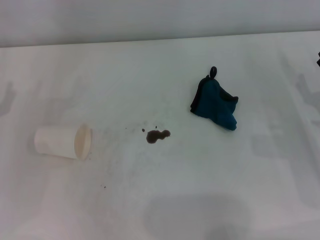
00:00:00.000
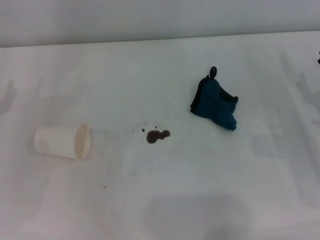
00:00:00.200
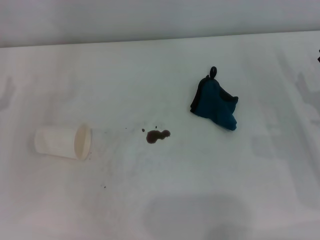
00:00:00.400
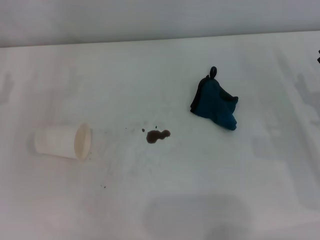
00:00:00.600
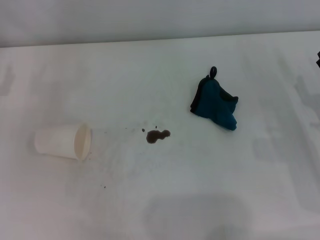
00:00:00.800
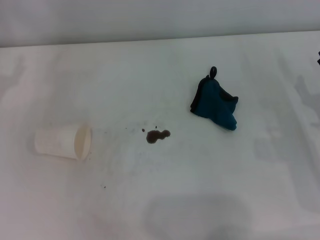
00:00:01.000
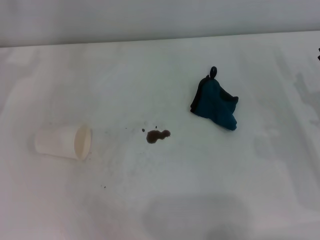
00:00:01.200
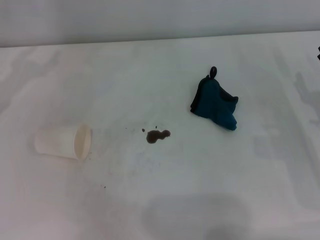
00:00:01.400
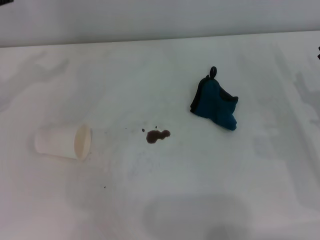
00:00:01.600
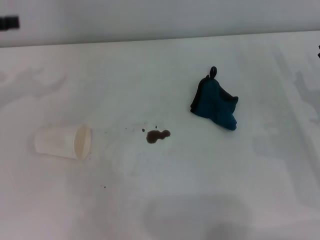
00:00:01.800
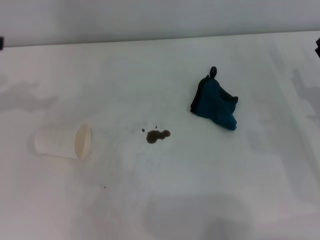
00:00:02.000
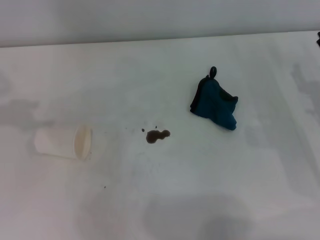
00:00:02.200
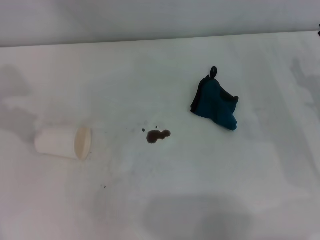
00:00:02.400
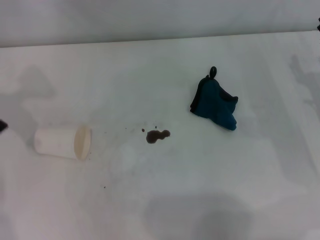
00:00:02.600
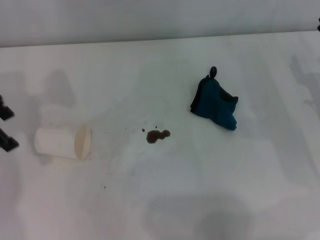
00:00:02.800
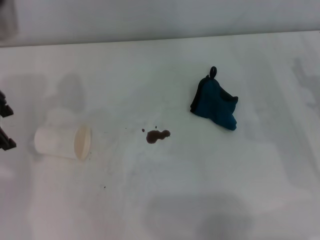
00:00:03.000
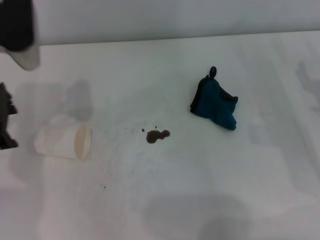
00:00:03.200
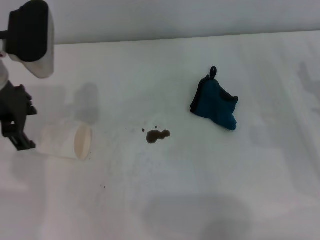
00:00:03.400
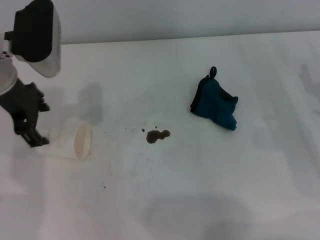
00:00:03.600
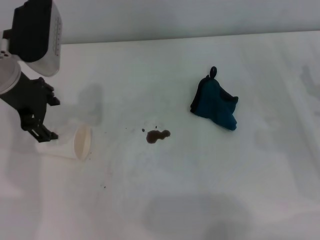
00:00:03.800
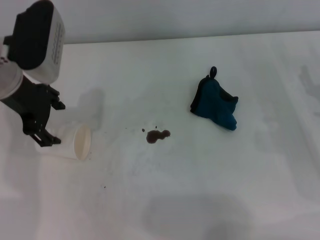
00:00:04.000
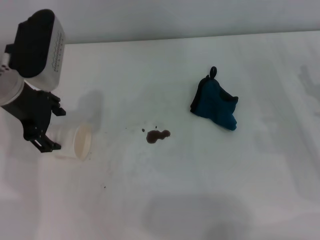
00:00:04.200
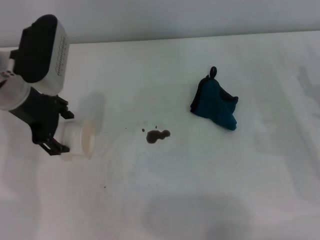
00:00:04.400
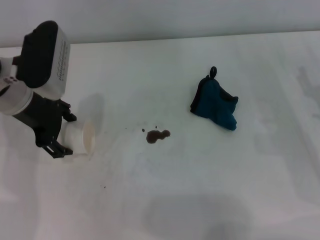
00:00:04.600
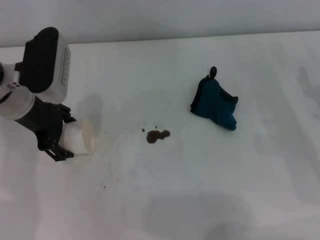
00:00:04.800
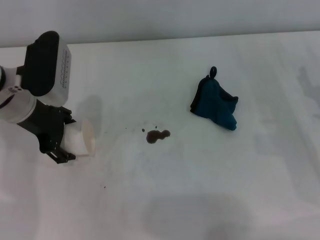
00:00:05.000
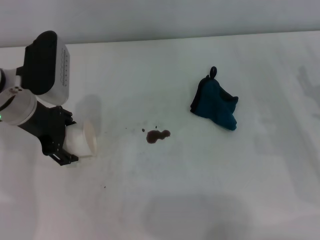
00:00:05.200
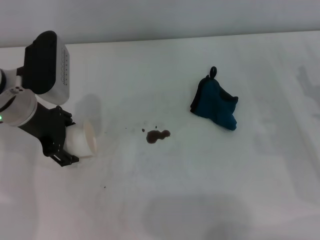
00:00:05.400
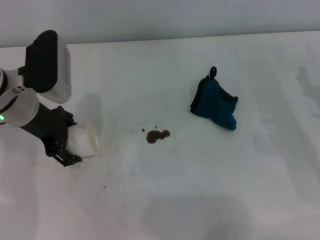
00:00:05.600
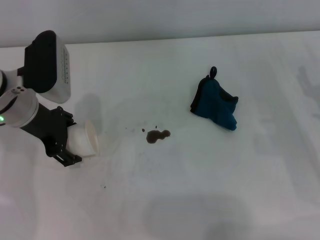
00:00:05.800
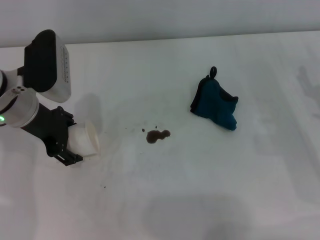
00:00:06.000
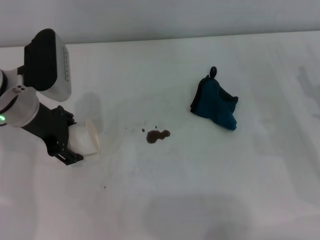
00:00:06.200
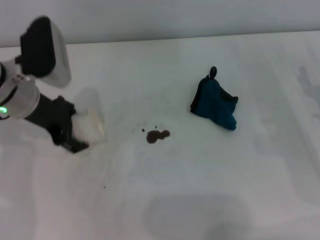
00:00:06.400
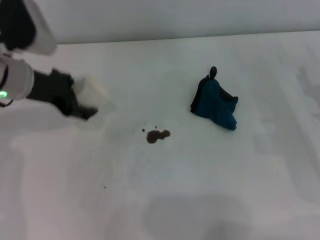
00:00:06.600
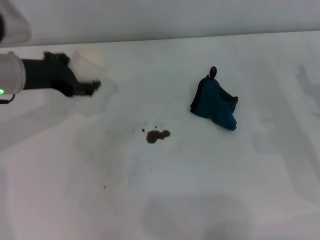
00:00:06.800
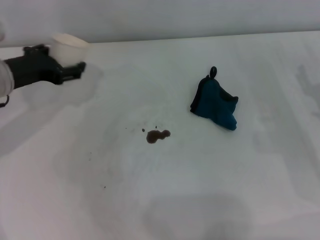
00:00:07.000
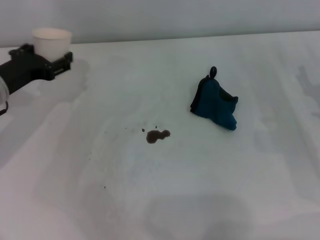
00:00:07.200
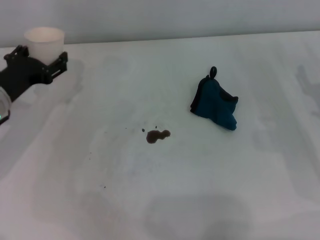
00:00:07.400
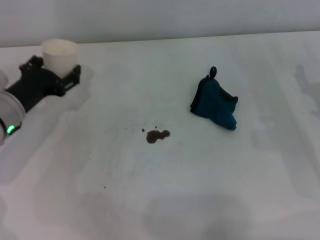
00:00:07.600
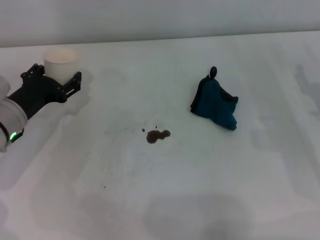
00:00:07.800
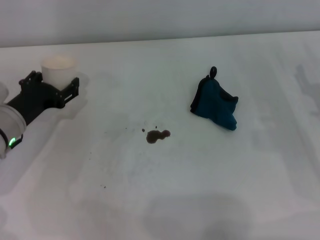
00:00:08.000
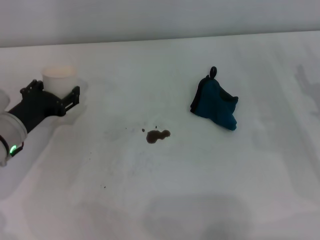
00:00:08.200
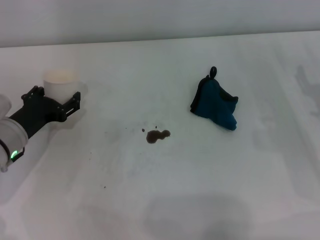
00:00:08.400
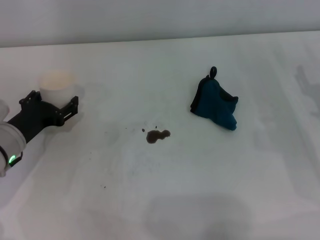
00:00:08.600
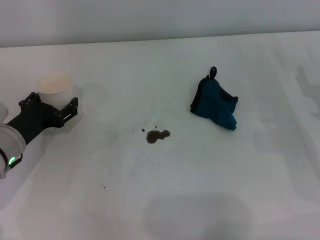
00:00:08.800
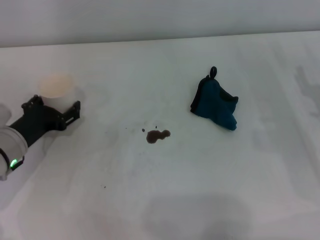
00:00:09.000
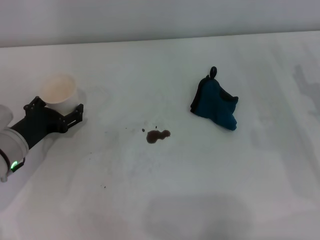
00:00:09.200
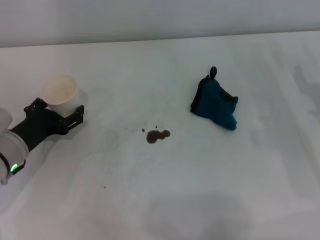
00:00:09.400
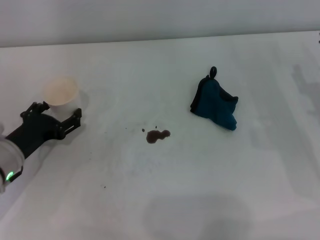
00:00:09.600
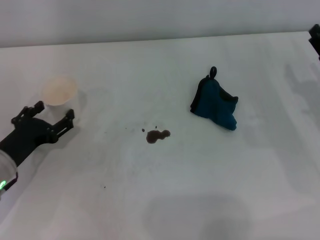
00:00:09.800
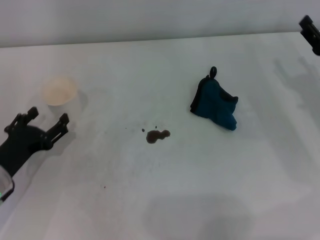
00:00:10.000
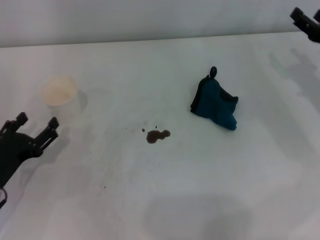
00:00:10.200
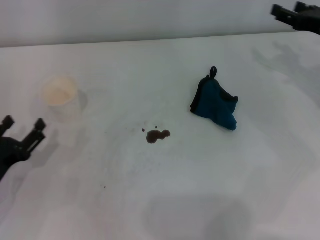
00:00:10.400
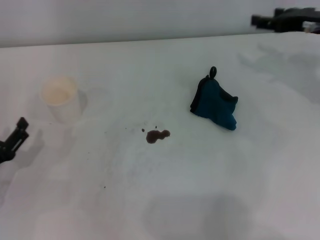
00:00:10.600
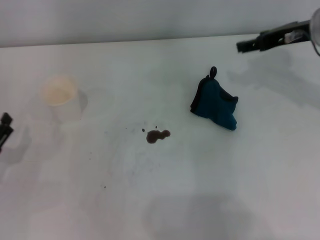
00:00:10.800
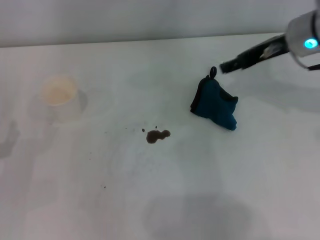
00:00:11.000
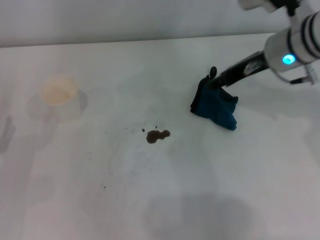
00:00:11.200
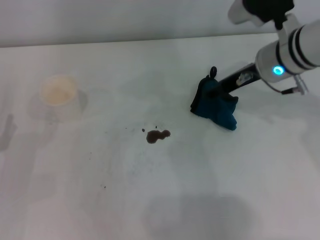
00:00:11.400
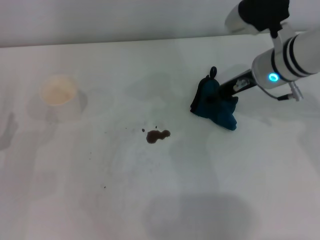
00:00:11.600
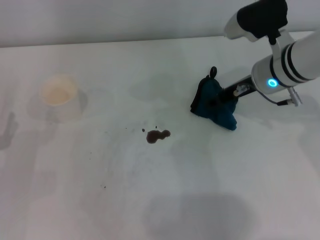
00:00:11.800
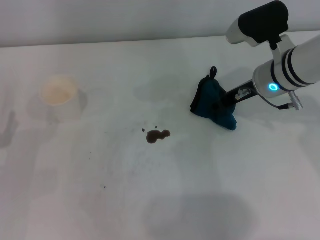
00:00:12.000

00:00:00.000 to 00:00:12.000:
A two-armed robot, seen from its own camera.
Step, 00:00:00.000 to 00:00:06.000: Grasp the paper cup with the left gripper.
Step, 00:00:06.200 to 00:00:09.400: Stand the paper cup upright with the left gripper.
00:00:01.600 to 00:00:03.000: The left gripper goes about 10 cm to the right.
00:00:03.000 to 00:00:04.400: The left gripper heads downward, covering approximately 5 cm.
00:00:04.400 to 00:00:06.000: The grippers make only small movements.
00:00:06.000 to 00:00:07.600: The left gripper is displaced downward by roughly 10 cm.
00:00:07.600 to 00:00:09.000: The left gripper changes place by some 5 cm.
00:00:09.000 to 00:00:10.400: The left gripper heads backward, covering roughly 10 cm. The right gripper heads forward and upward, covering about 15 cm.
00:00:10.400 to 00:00:12.000: The right gripper heads to the left, covering about 15 cm.

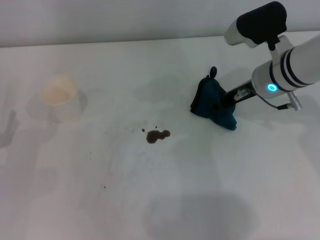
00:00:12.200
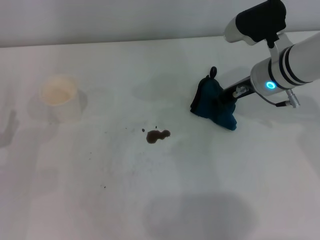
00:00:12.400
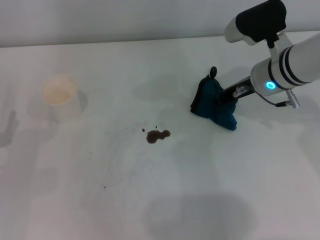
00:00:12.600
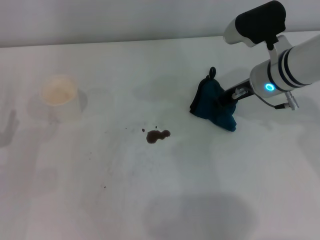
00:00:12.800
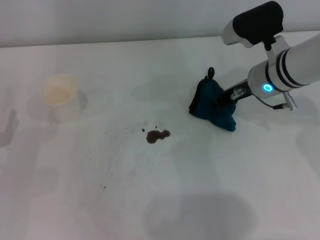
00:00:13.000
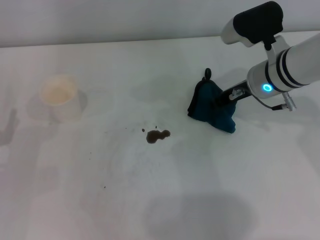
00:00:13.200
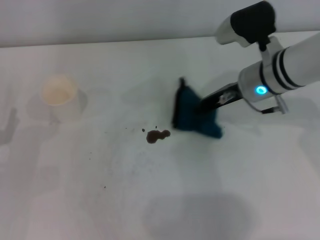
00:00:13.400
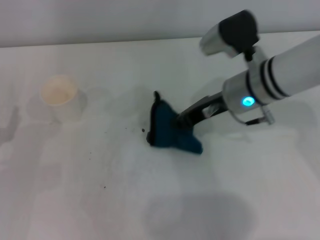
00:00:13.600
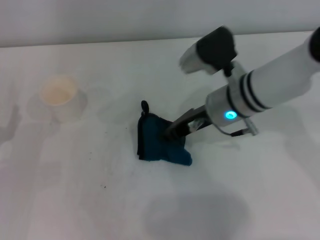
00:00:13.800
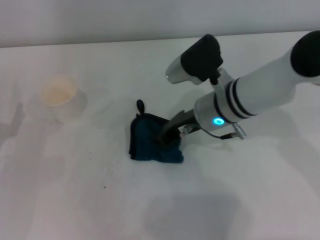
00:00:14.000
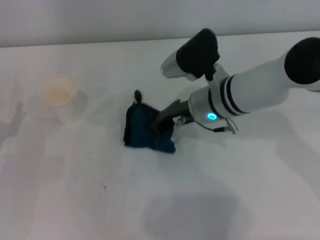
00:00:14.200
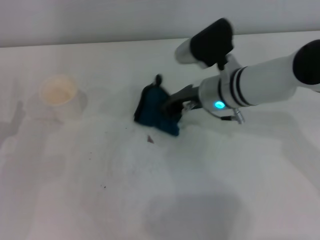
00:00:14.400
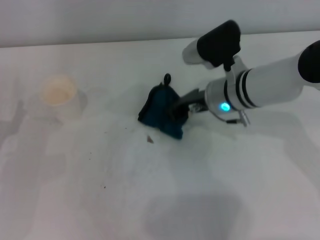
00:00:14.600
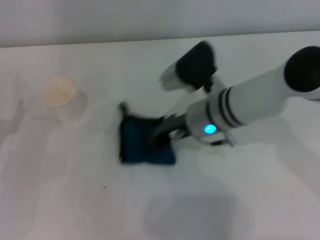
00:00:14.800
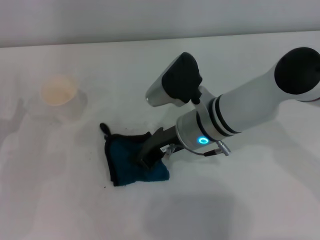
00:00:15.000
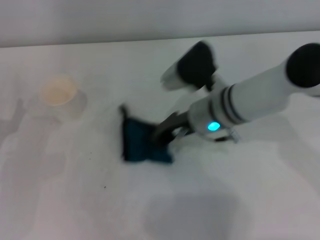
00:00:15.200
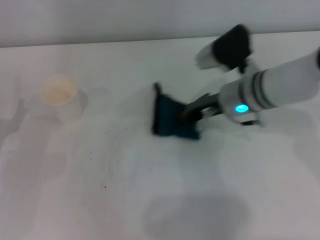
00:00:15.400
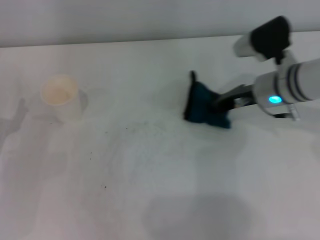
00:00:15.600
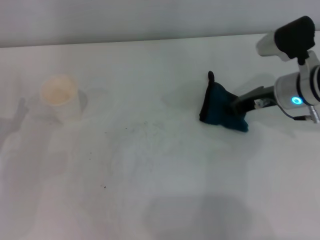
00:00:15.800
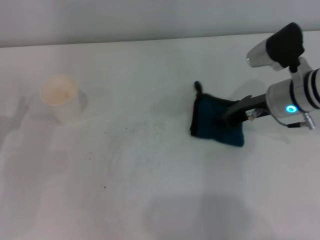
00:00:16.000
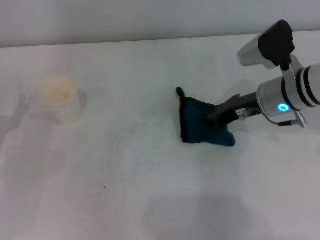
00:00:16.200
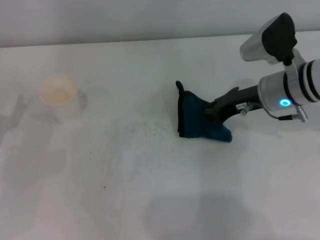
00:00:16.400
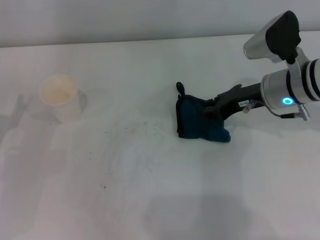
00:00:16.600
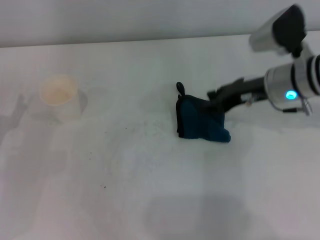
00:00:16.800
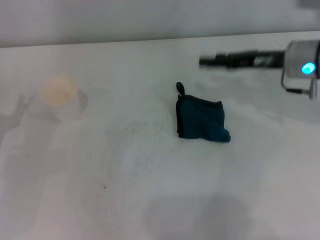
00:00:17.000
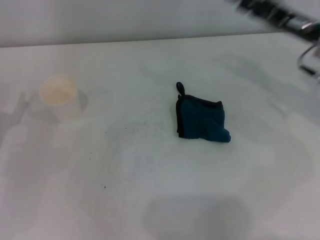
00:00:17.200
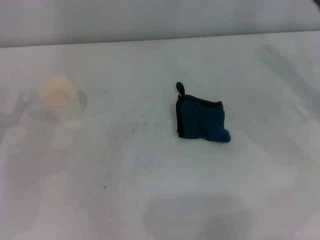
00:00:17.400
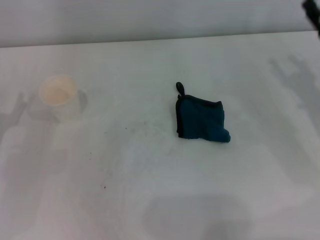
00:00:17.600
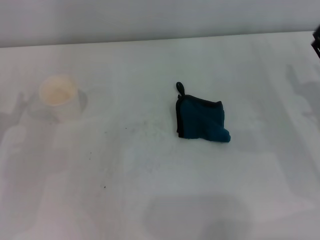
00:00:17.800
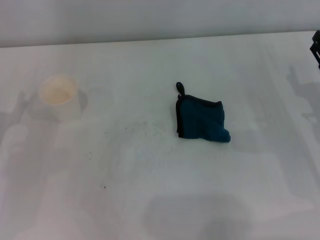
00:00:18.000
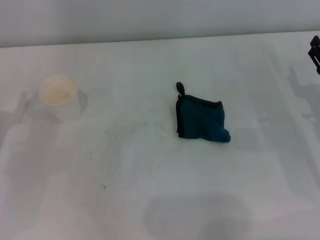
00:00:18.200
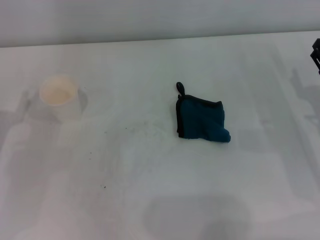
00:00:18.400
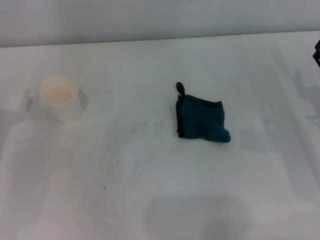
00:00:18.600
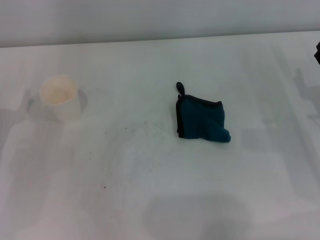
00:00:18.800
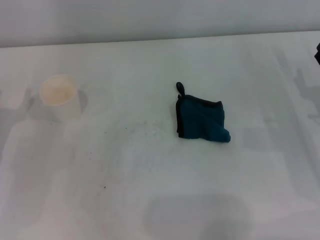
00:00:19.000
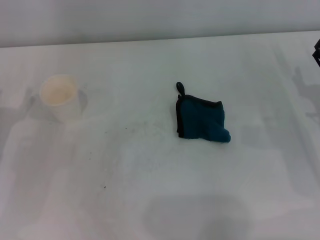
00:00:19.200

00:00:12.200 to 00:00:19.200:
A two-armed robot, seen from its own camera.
Step, 00:00:13.400 to 00:00:15.800: Wipe the stains off the table with the right gripper.
Step, 00:00:16.000 to 00:00:16.400: Place the rag on the table with the right gripper.
00:00:12.200 to 00:00:13.600: The right gripper moves roughly 5 cm, and closes its fingers.
00:00:13.600 to 00:00:15.000: The right gripper is displaced to the left by some 5 cm.
00:00:15.000 to 00:00:16.400: The right gripper goes about 15 cm to the right.
00:00:16.400 to 00:00:17.800: The right gripper travels to the right, backward and downward by approximately 15 cm, and opens.
